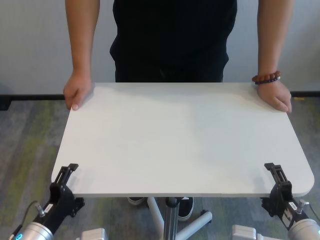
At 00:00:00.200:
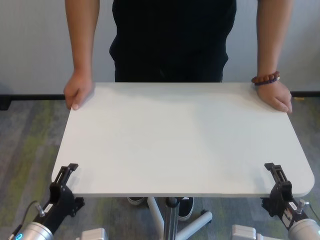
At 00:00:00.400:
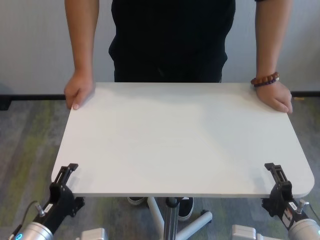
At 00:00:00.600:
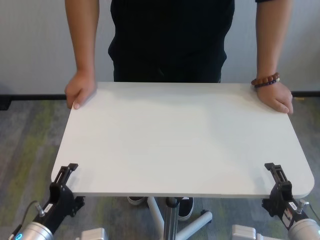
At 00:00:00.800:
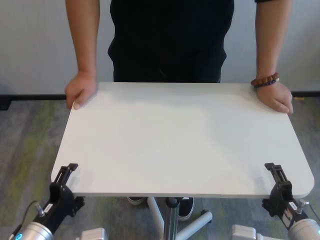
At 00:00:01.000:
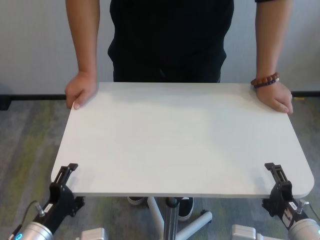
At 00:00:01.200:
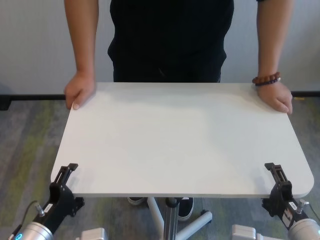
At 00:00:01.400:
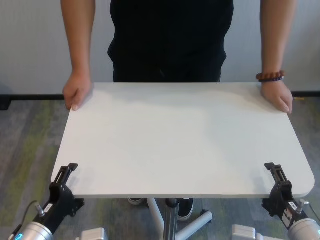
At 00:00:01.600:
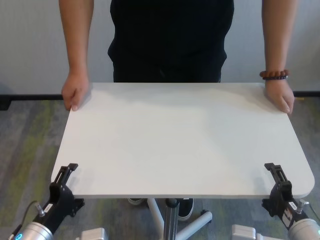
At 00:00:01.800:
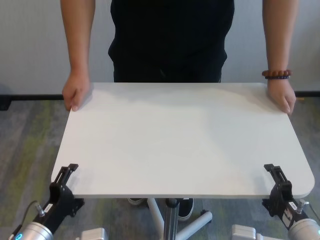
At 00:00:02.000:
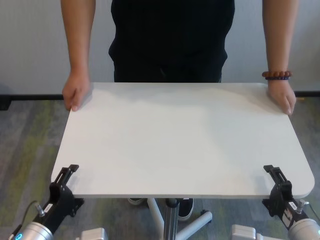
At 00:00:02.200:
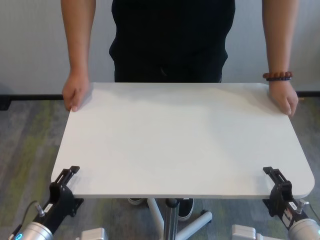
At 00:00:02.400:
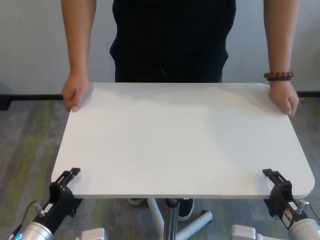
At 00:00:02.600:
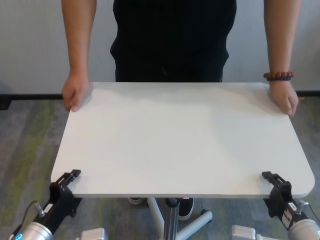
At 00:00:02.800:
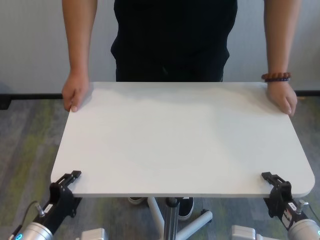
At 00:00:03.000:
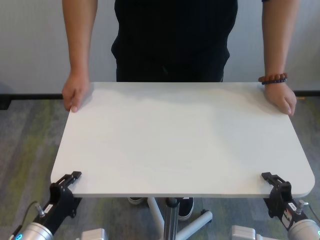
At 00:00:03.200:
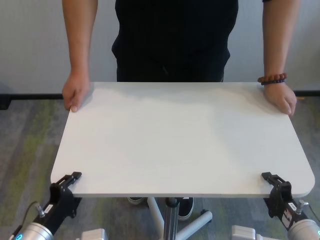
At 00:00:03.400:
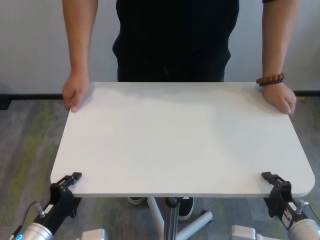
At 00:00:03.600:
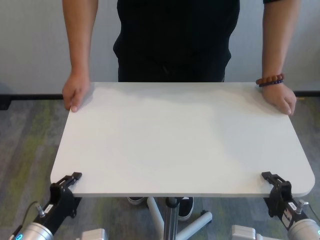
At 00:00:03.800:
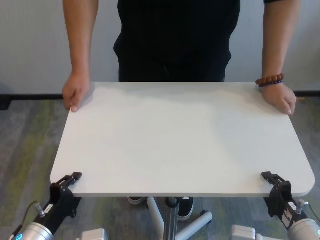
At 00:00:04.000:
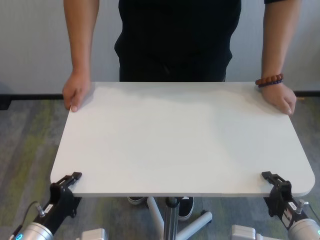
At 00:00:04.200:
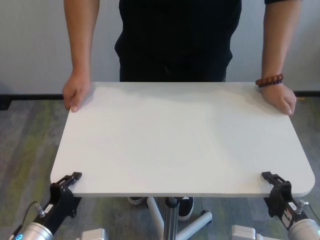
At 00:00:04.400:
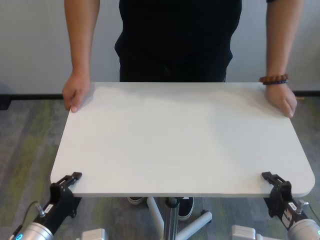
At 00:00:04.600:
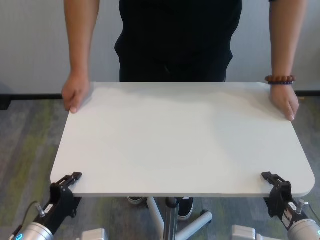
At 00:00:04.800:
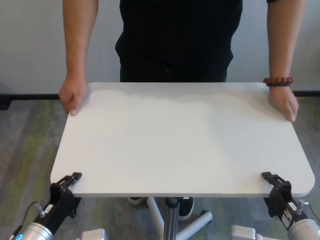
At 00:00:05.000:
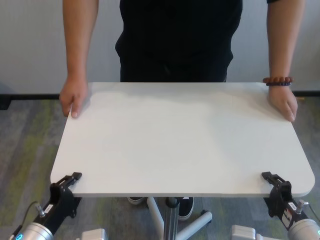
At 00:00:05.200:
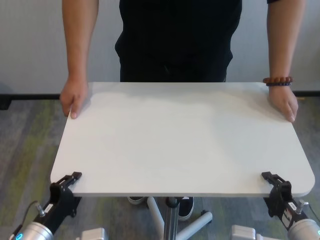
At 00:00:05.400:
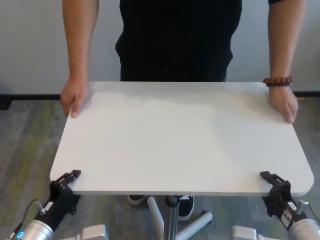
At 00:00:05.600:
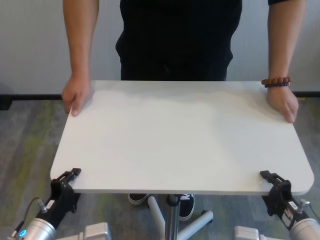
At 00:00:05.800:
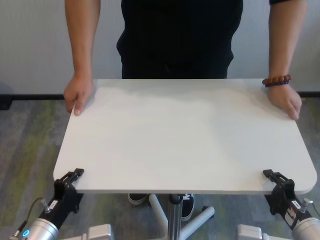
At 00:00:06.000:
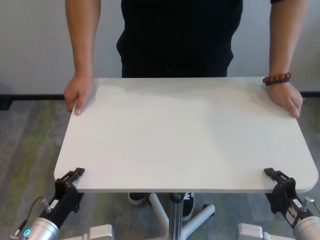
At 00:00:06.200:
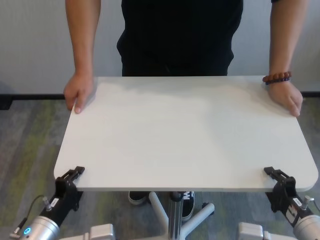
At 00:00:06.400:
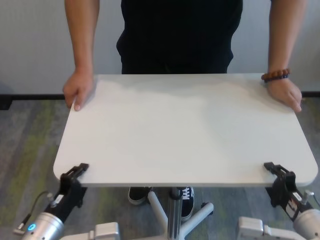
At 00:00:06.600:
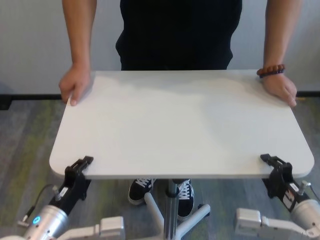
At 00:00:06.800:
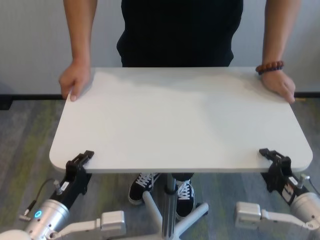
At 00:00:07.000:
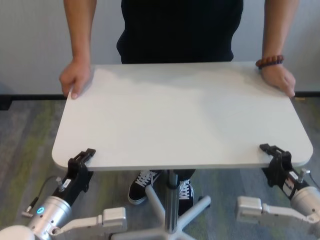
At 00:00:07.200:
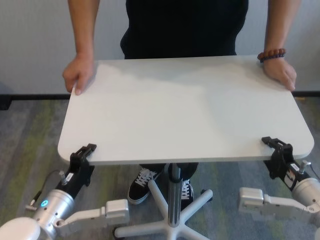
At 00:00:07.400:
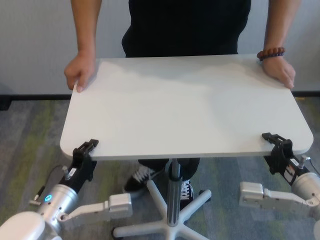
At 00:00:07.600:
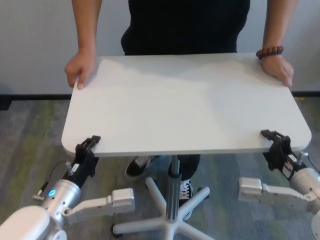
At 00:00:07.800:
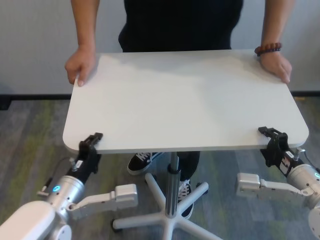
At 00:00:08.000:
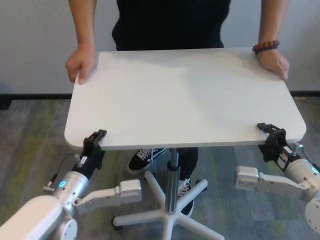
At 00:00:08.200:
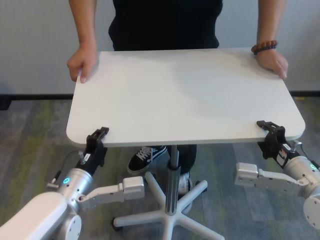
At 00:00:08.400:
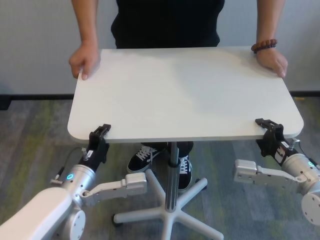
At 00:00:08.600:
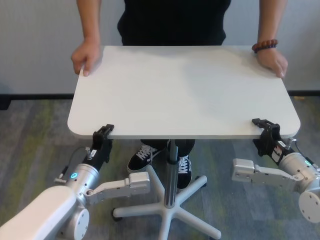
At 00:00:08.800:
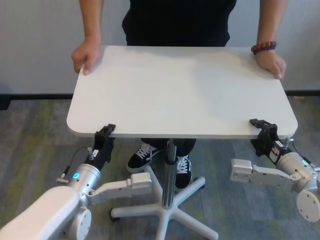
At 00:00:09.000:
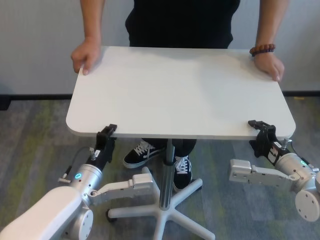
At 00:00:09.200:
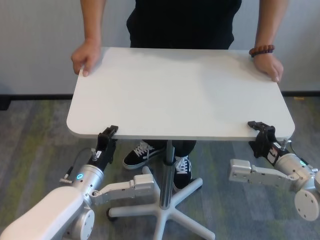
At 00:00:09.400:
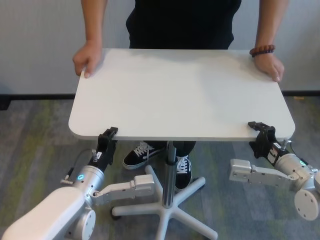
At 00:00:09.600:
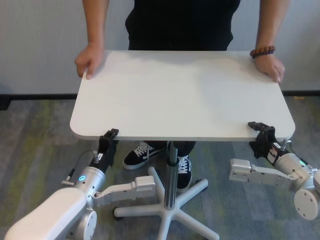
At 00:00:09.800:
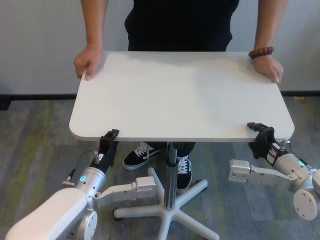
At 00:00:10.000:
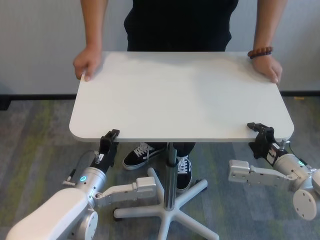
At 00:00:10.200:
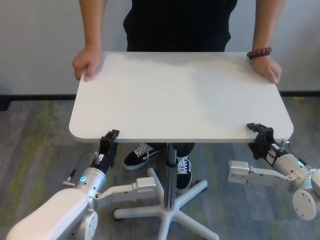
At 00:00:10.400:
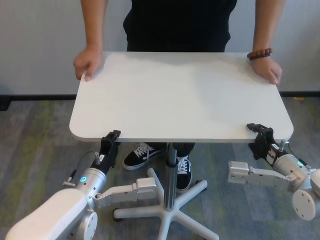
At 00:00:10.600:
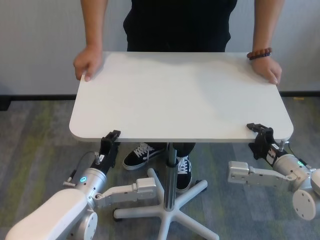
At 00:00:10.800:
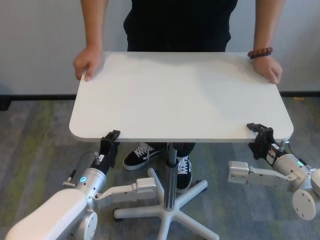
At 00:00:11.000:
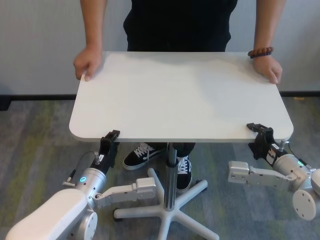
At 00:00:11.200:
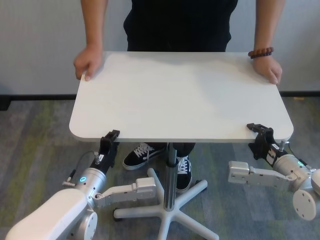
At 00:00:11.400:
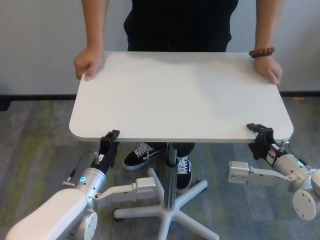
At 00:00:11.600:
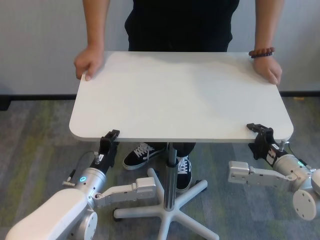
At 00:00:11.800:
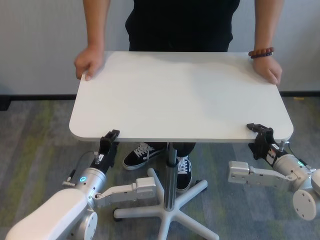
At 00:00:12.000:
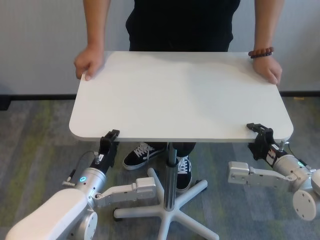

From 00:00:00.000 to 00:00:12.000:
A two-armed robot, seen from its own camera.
Task of the whole recording: human machine collaborative table moving.
Step, from 00:00:00.000 to 00:00:03.600: Grasp the table with both grippers.
